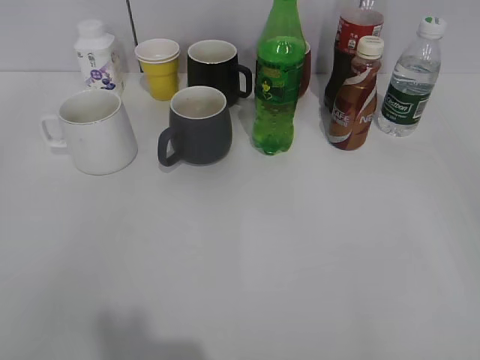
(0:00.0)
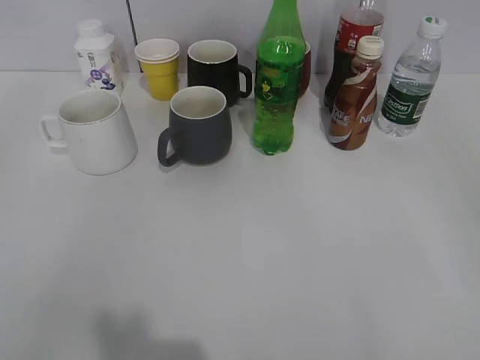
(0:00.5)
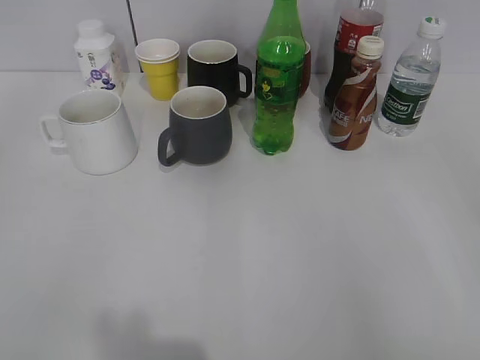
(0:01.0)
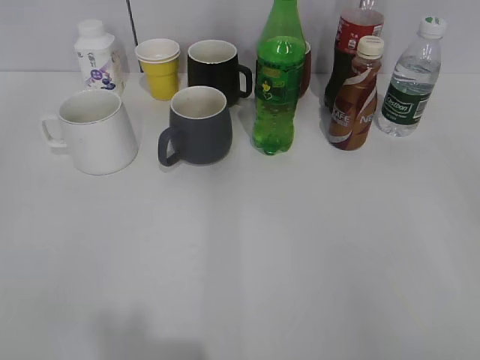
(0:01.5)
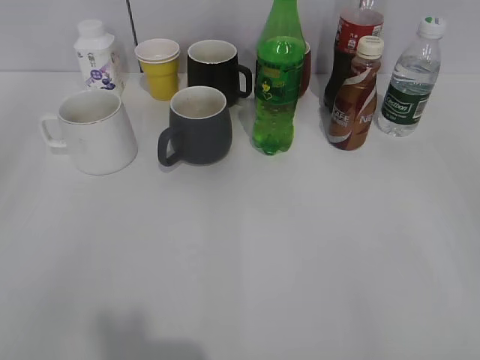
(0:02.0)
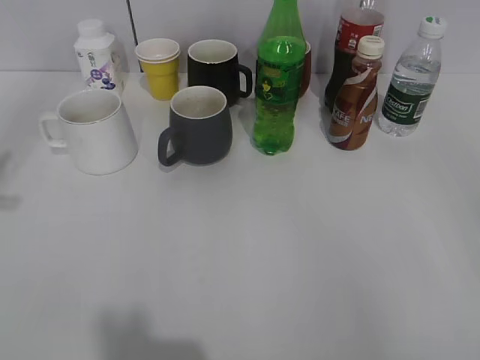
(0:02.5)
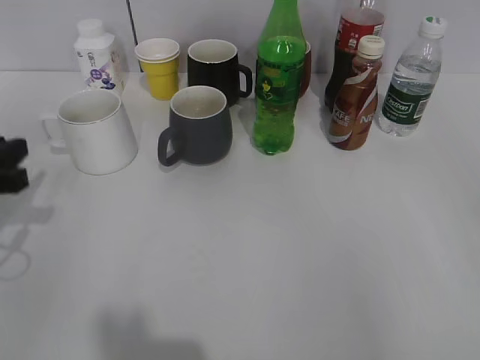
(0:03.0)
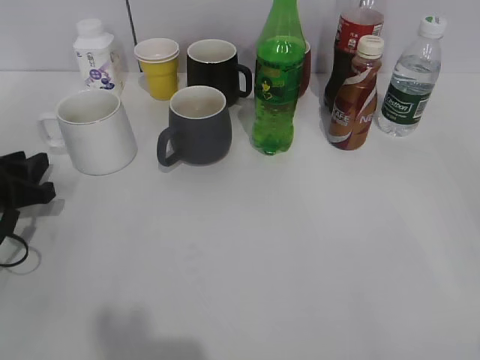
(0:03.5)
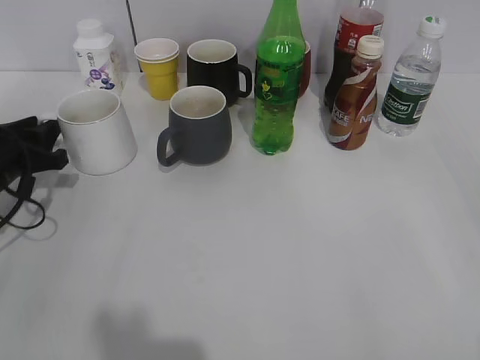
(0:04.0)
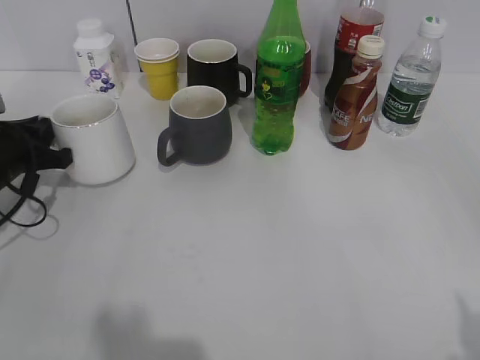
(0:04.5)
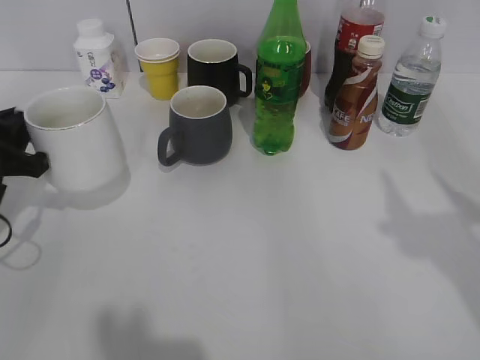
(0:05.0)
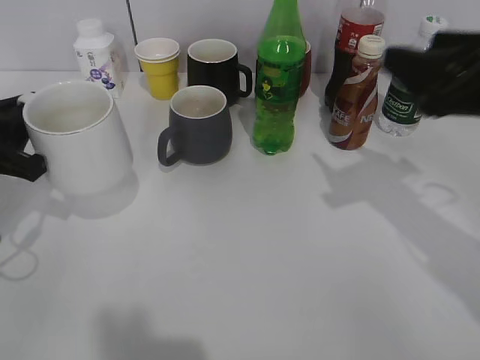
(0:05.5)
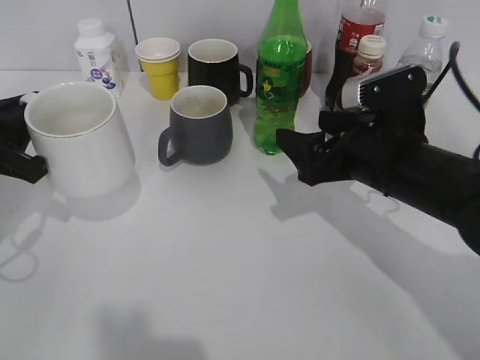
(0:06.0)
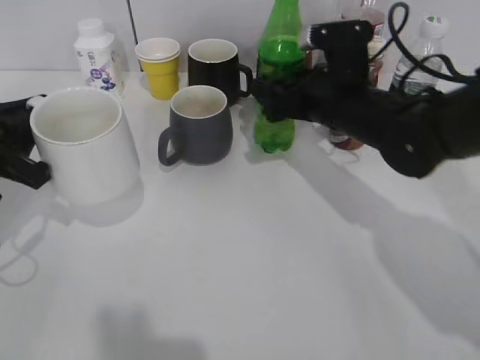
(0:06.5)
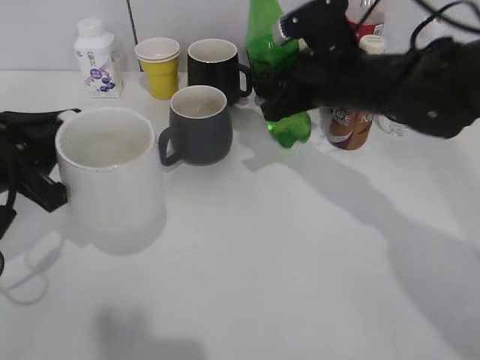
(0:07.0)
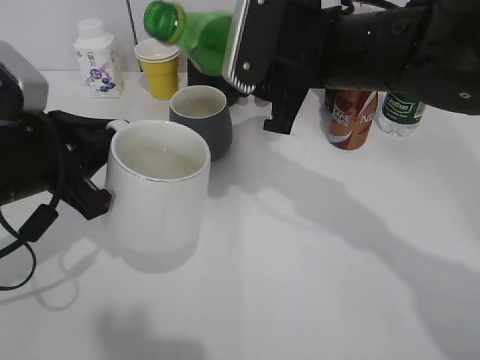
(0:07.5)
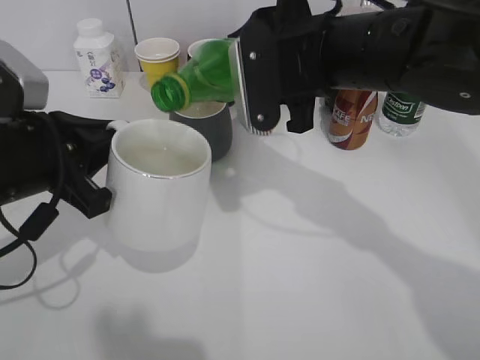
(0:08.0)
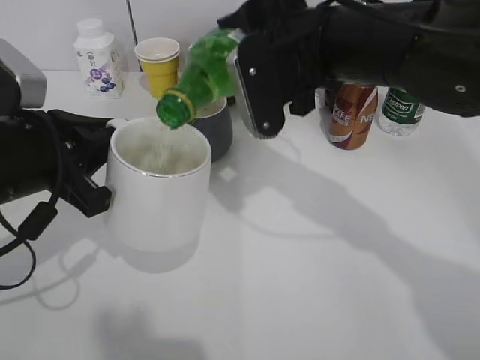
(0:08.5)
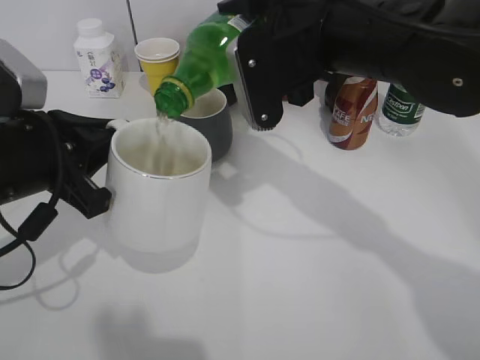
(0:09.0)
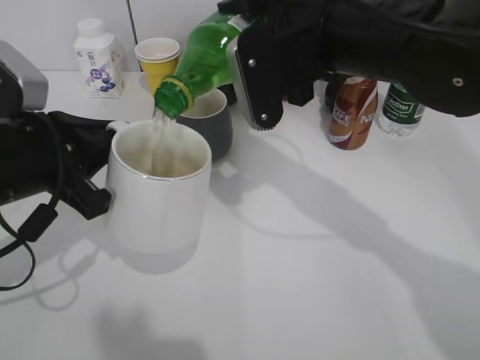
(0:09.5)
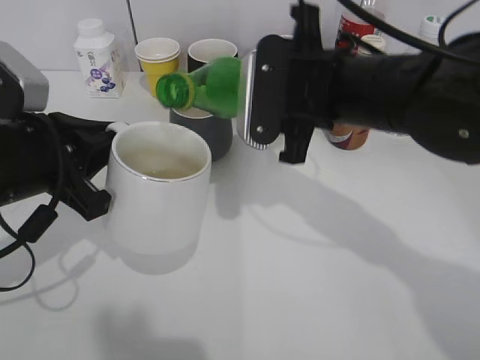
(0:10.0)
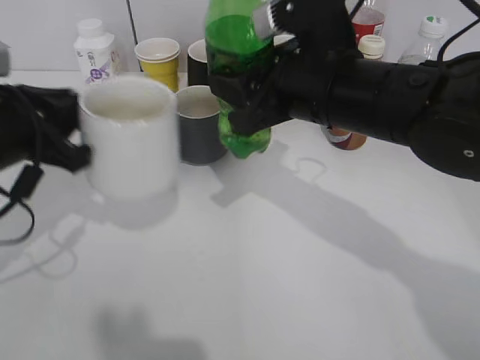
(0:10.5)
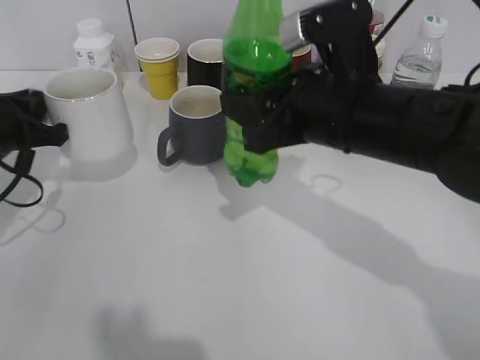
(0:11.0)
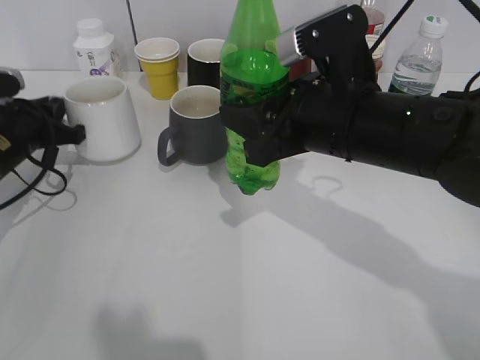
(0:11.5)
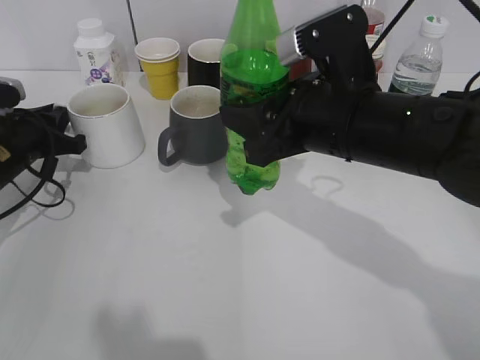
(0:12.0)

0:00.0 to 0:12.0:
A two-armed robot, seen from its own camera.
Step, 0:02.0 to 0:04.0: Grasp the white cup with left gripper.
Step, 0:04.5 to 0:05.0: Lift the white cup with left gripper.
Step, 0:05.5 to 0:06.5: Grasp the bottle with sprite with right gripper.
Step, 0:07.0 to 0:09.5: Pour the sprite from bottle to cup with right gripper.
0:02.0 to 0:04.0: The left gripper moves forward and downward, roughly 35 cm.
0:04.0 to 0:06.0: The left gripper travels backward and upward by about 10 cm, and closes up, while the right gripper travels forward, to the left and downward by roughly 35 cm.
0:06.0 to 0:08.0: The left gripper goes approximately 10 cm to the right. The right gripper heads upward and to the left, covering about 10 cm, and closes.
0:08.0 to 0:10.0: The grippers move only a little.
0:10.0 to 0:12.0: The left gripper heads forward, downward and to the left, covering approximately 20 cm.

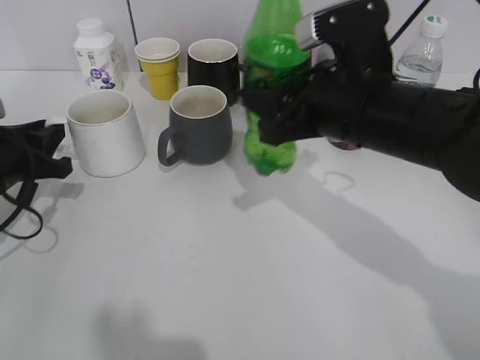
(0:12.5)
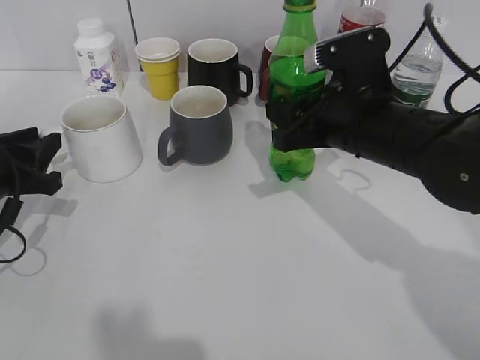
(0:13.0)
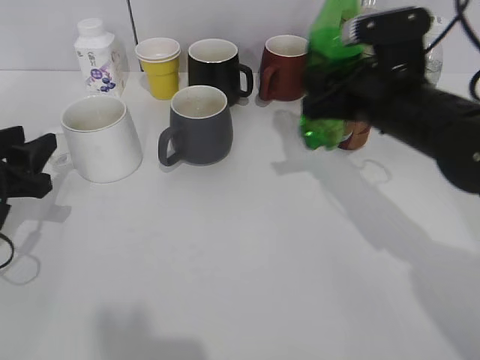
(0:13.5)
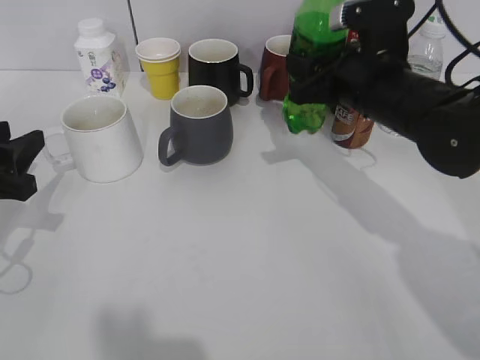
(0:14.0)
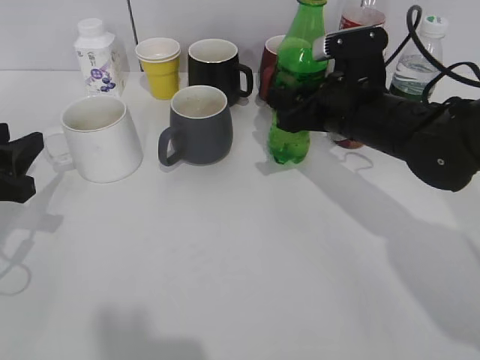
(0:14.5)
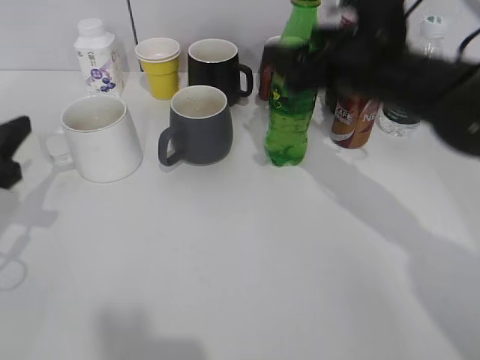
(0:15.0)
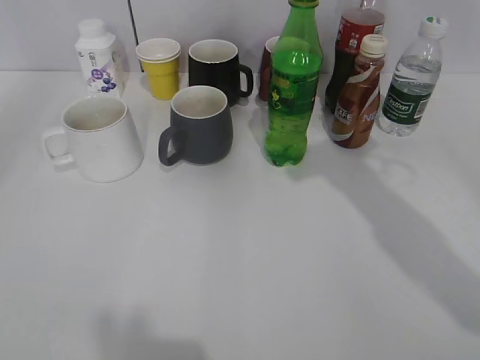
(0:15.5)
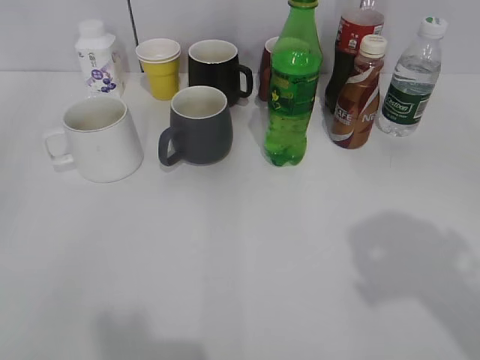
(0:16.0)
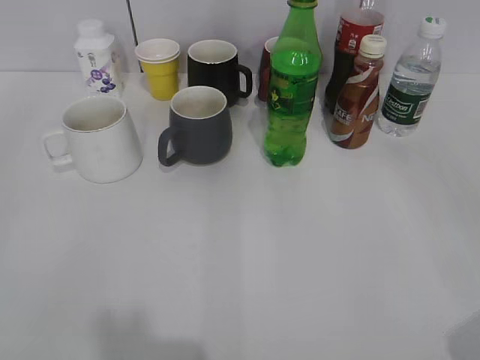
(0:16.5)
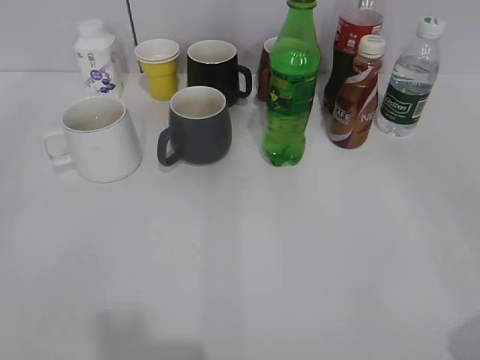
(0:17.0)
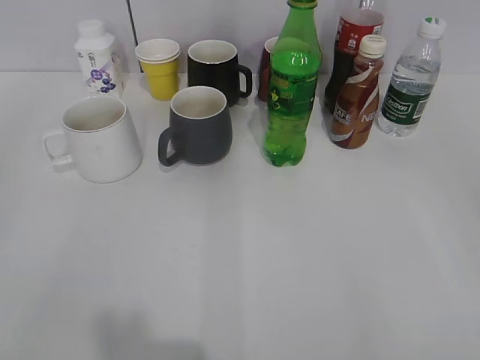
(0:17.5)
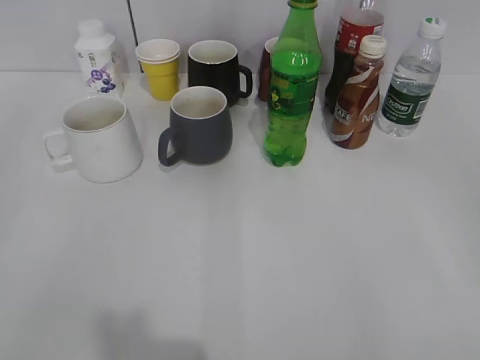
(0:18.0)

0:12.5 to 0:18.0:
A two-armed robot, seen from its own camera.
Step, 0:12.5 to 0:15.0: Place the sprite bottle on the table with right gripper.
0:12.5 to 0:14.5: The left gripper is displaced backward by about 5 cm; the right gripper heads forward and downward, covering some 10 cm, and opens up.
0:14.5 to 0:16.0: The left gripper heads backward and upward, covering some 25 cm, and opens its fingers, while the right gripper goes some 30 cm backward, upward and to the right, and opens its fingers.
